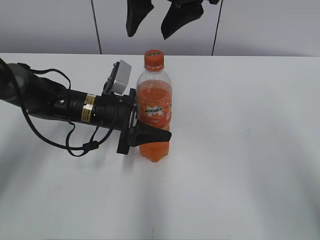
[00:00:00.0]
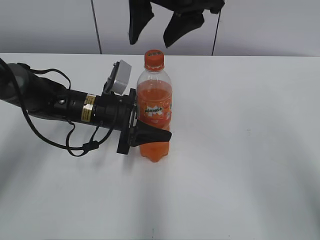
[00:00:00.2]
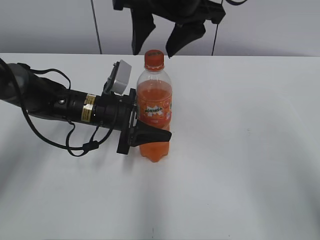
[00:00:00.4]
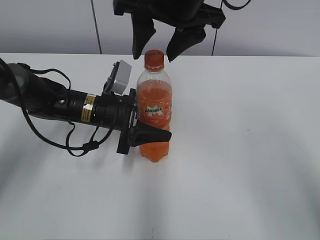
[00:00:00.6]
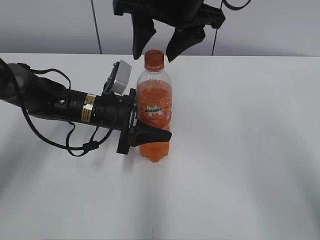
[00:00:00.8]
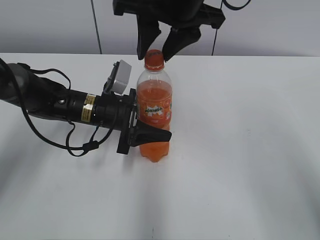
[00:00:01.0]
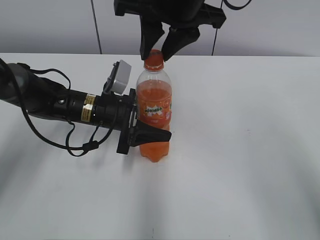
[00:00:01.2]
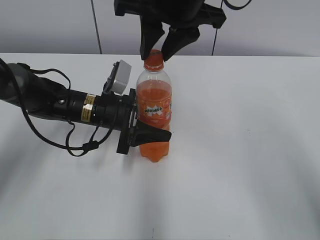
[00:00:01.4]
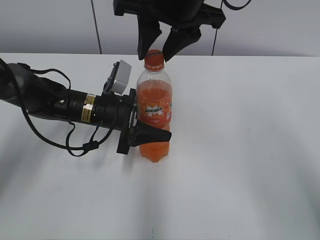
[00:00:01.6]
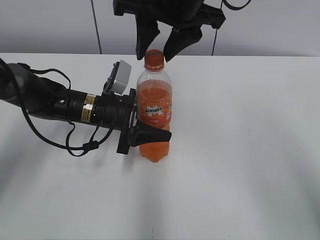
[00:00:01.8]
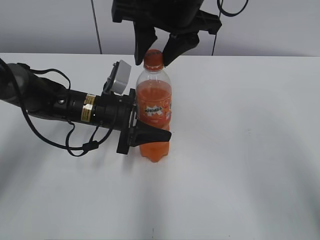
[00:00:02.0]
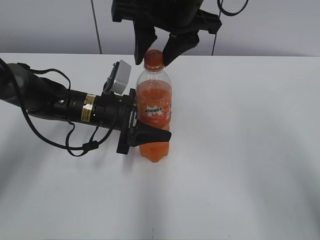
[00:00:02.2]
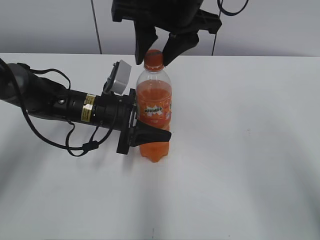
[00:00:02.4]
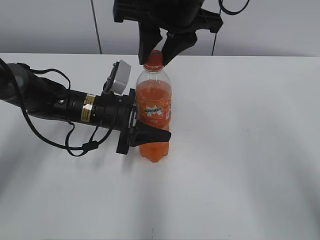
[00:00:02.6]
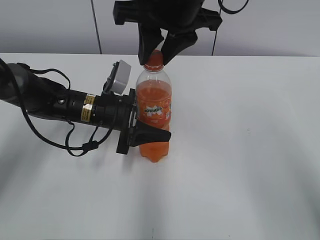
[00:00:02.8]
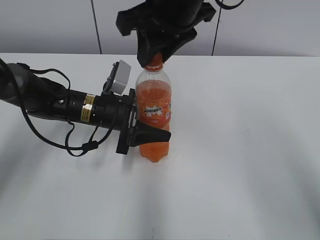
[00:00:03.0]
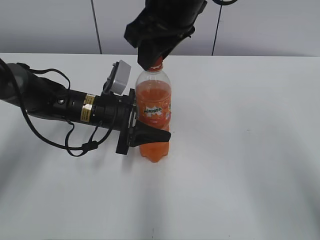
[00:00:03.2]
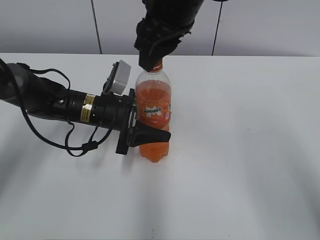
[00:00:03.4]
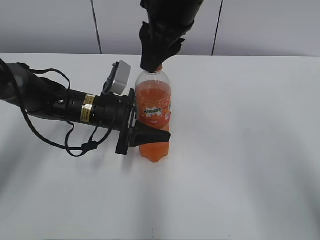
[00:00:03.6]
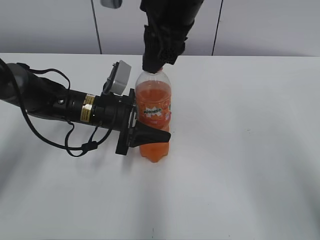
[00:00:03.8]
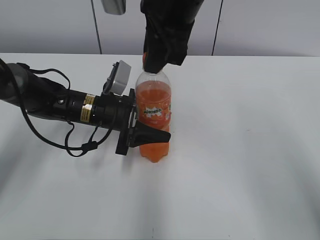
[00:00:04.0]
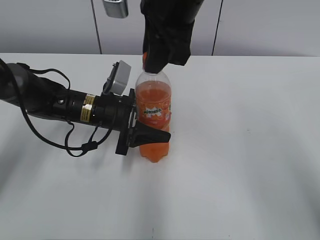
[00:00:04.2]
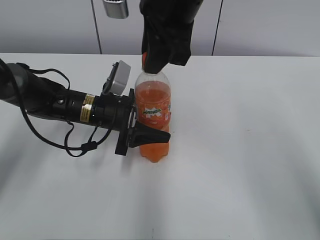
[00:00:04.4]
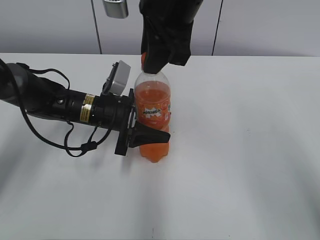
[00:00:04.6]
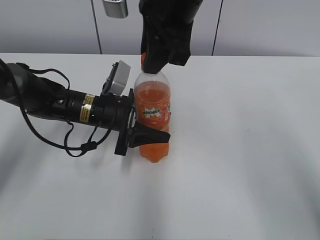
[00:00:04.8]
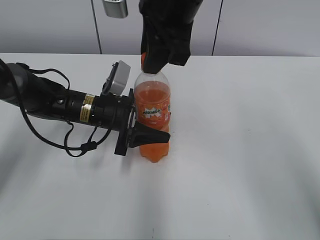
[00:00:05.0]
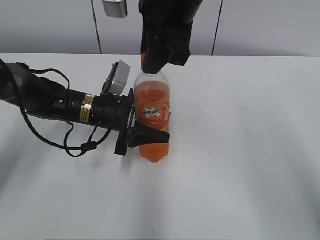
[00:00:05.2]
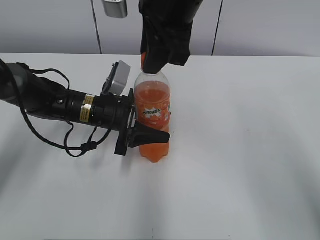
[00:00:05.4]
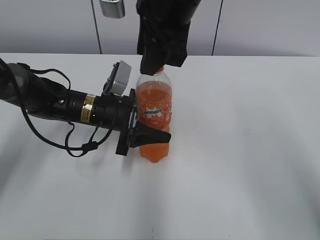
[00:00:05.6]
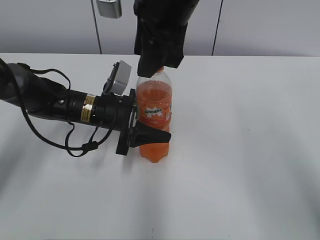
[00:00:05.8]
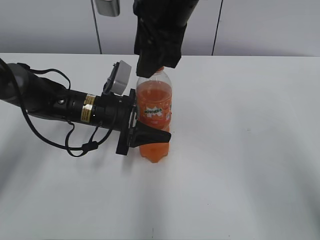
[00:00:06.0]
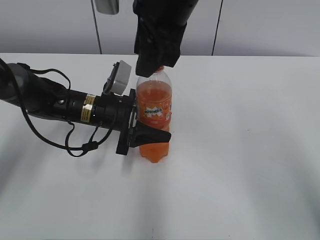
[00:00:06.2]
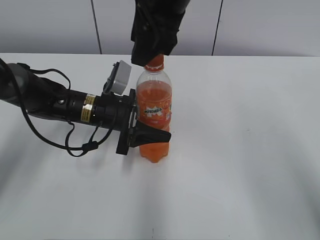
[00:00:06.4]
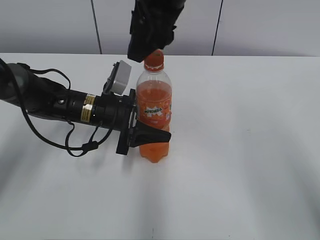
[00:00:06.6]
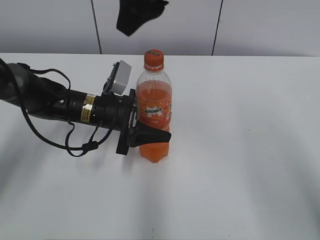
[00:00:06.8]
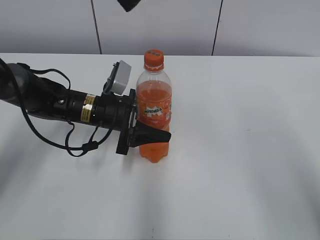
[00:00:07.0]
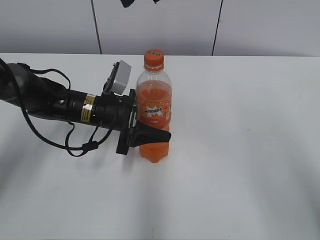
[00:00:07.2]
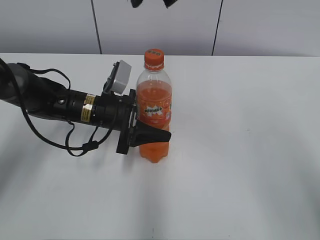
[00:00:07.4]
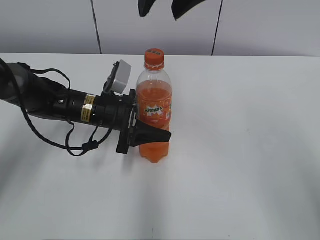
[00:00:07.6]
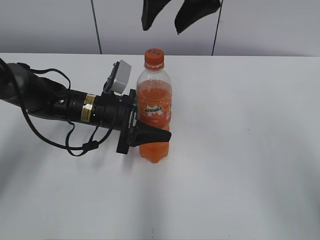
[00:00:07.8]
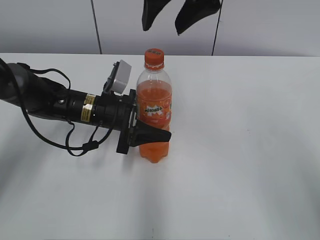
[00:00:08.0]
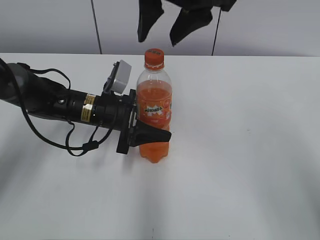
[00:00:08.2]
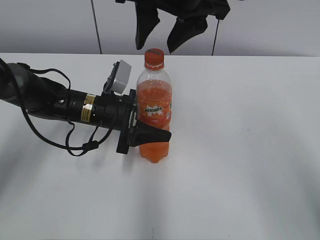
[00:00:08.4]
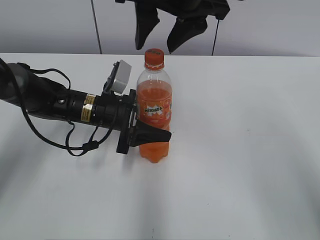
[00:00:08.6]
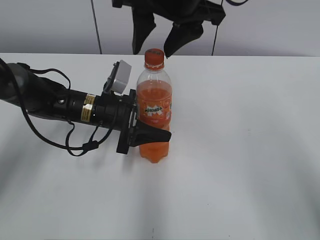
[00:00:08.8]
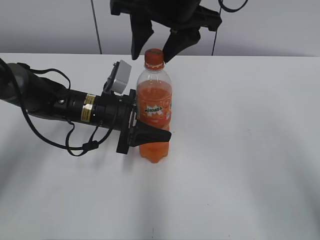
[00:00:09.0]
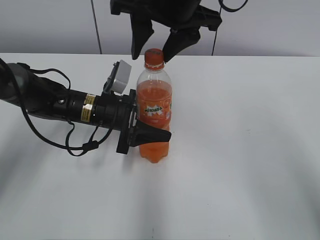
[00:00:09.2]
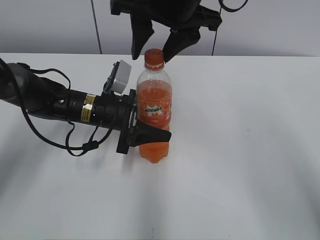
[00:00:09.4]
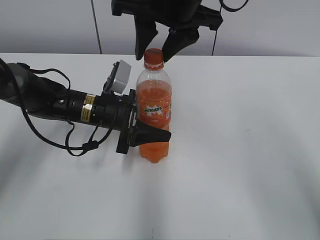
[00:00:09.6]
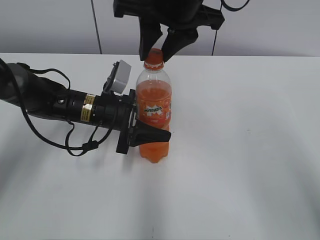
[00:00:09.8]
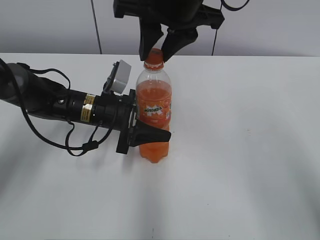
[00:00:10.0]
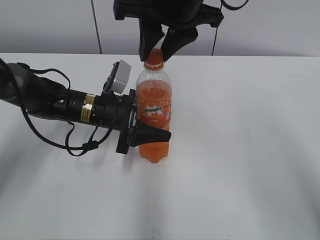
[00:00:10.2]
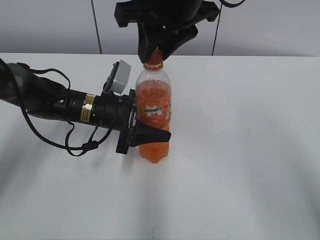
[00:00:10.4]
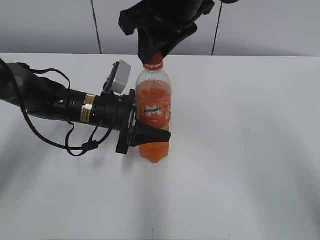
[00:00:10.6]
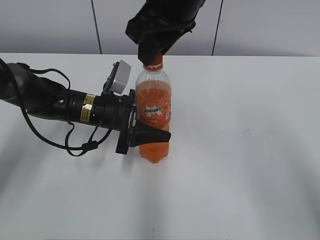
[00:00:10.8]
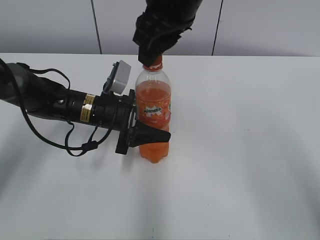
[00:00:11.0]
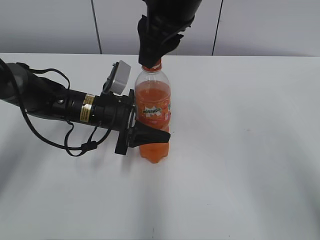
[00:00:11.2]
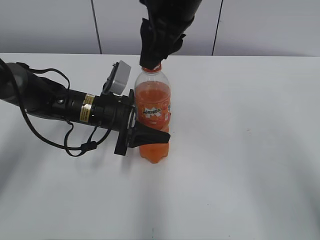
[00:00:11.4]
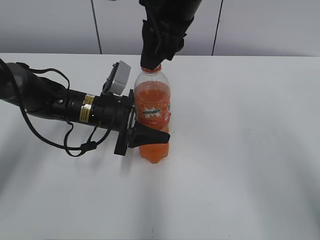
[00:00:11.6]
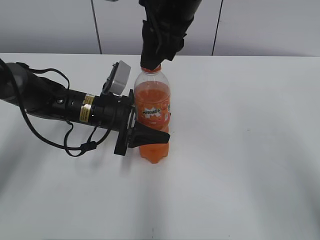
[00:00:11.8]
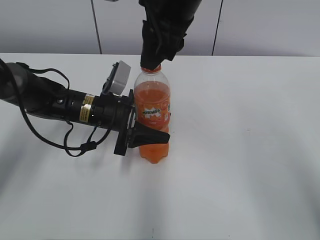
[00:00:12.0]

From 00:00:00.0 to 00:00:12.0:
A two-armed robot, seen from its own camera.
From 00:00:00.0 to 00:00:01.6: The right gripper closes.
From 00:00:01.6 to 00:00:03.0: There are only small adjustments of the grippers.
From 00:00:04.4 to 00:00:06.0: The right gripper opens its fingers.
From 00:00:06.0 to 00:00:07.6: The right gripper moves upward, about 5 cm.
From 00:00:07.6 to 00:00:09.0: The right gripper is displaced downward by approximately 5 cm.
From 00:00:09.0 to 00:00:10.4: The right gripper closes.

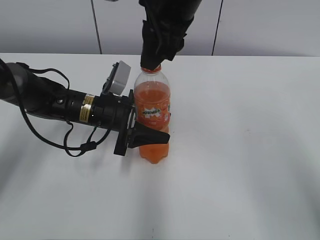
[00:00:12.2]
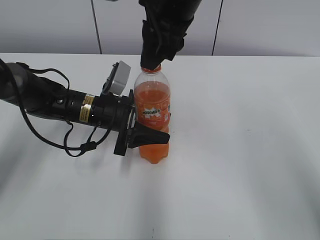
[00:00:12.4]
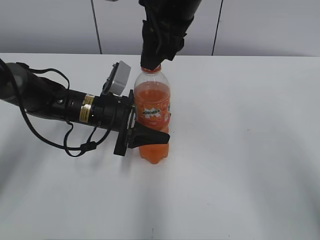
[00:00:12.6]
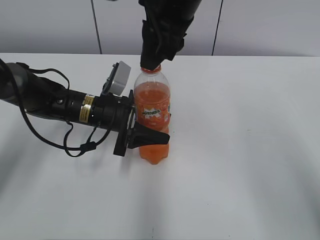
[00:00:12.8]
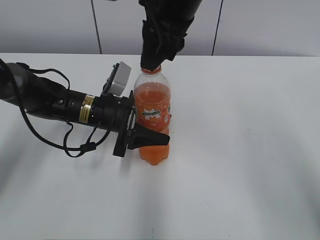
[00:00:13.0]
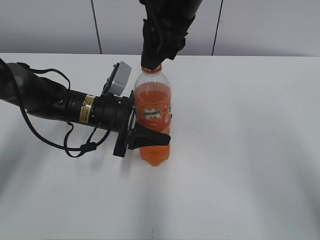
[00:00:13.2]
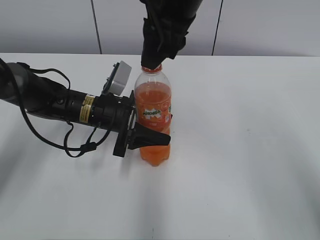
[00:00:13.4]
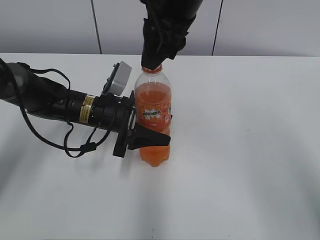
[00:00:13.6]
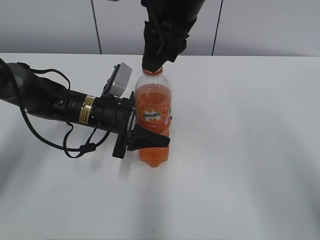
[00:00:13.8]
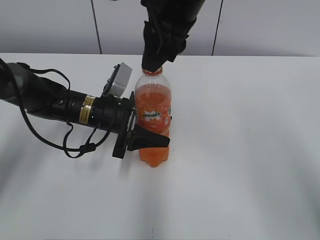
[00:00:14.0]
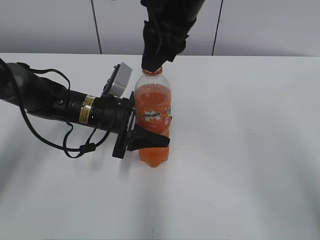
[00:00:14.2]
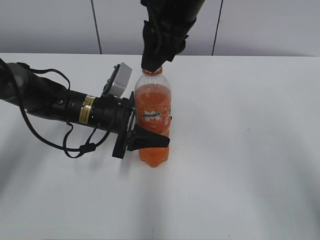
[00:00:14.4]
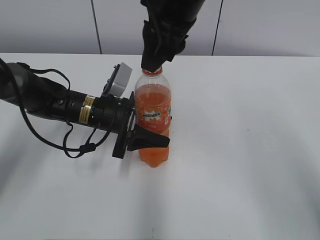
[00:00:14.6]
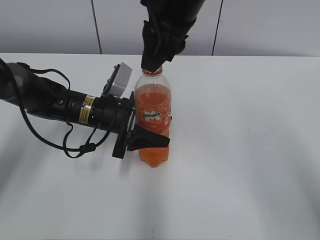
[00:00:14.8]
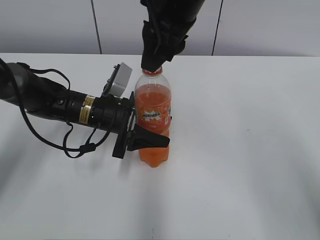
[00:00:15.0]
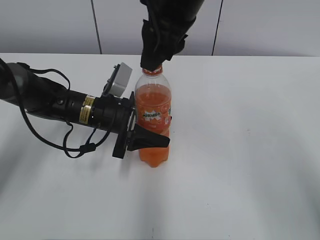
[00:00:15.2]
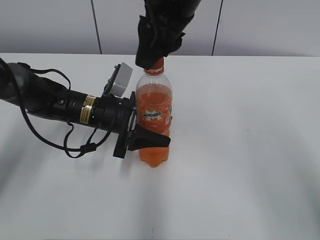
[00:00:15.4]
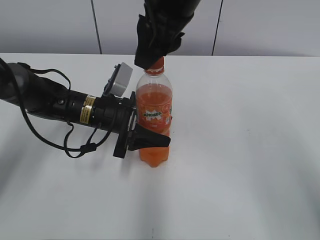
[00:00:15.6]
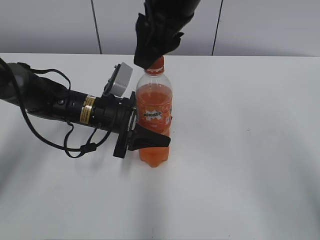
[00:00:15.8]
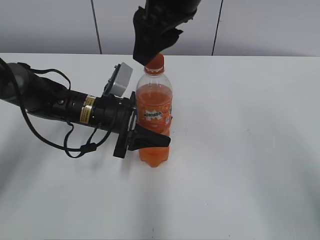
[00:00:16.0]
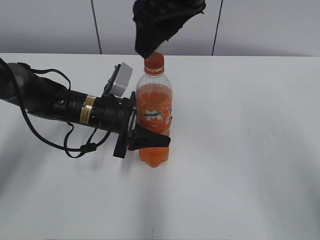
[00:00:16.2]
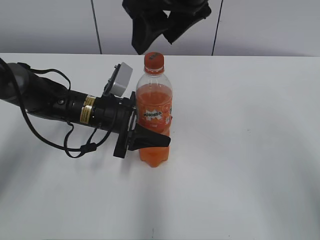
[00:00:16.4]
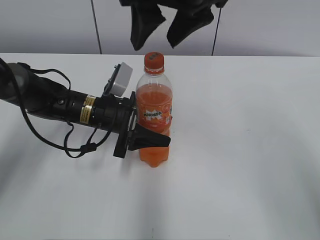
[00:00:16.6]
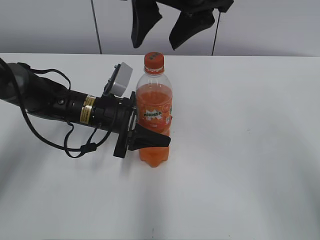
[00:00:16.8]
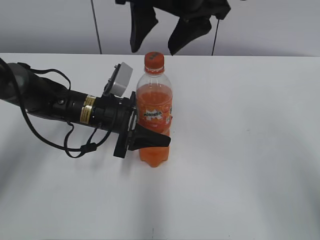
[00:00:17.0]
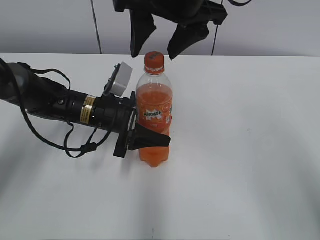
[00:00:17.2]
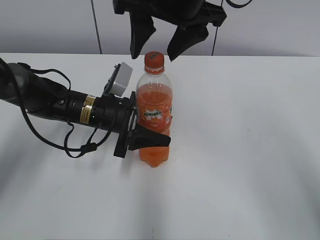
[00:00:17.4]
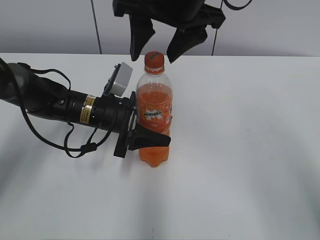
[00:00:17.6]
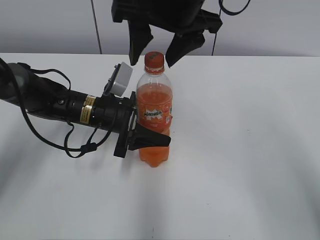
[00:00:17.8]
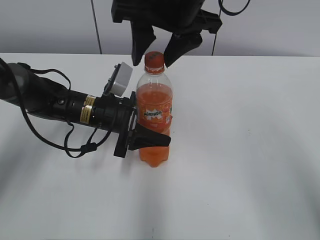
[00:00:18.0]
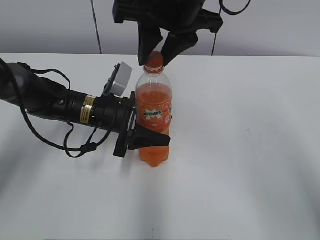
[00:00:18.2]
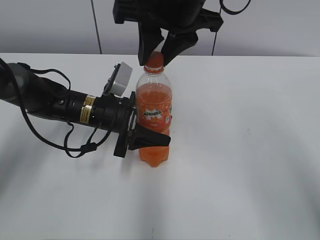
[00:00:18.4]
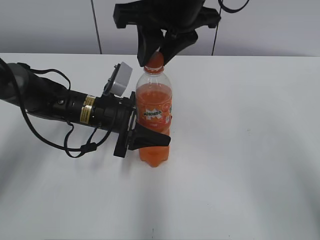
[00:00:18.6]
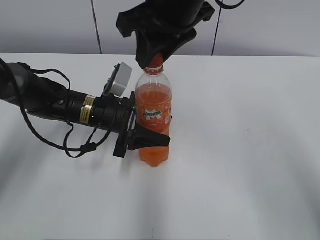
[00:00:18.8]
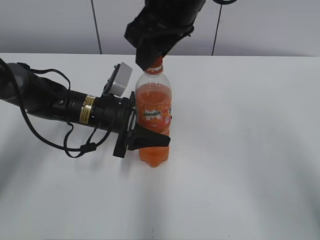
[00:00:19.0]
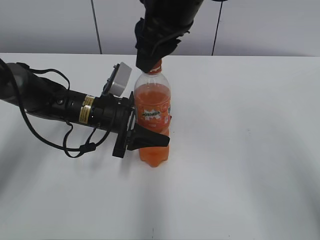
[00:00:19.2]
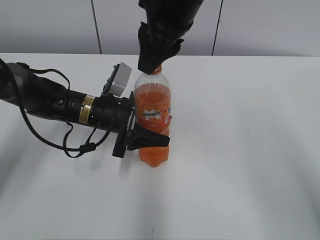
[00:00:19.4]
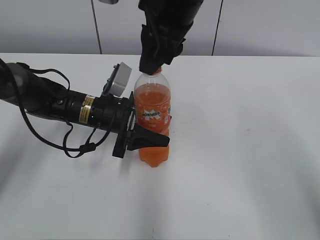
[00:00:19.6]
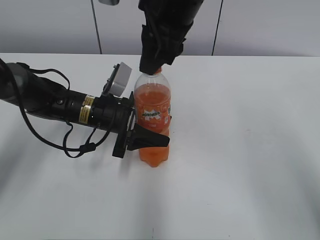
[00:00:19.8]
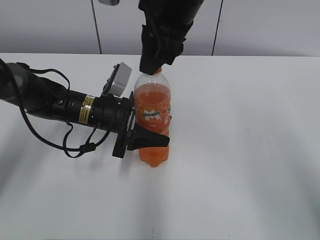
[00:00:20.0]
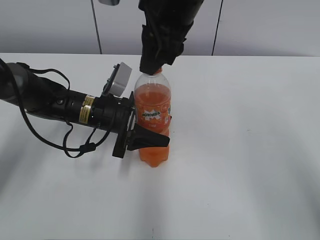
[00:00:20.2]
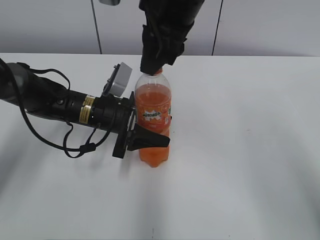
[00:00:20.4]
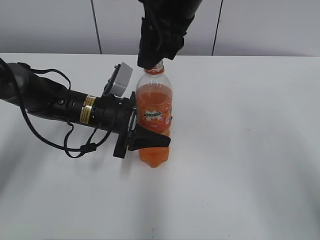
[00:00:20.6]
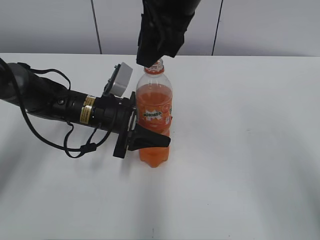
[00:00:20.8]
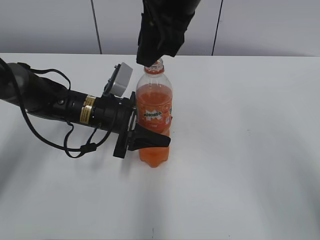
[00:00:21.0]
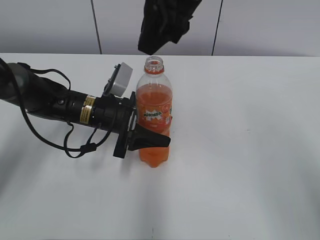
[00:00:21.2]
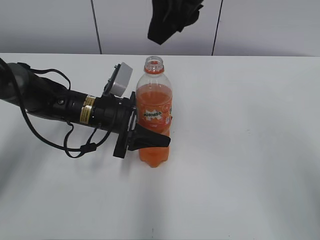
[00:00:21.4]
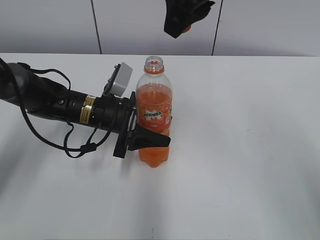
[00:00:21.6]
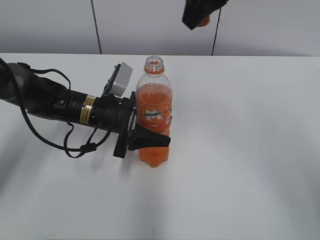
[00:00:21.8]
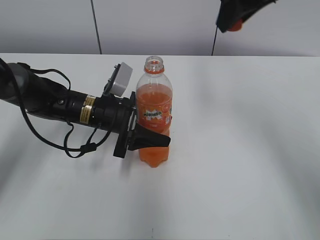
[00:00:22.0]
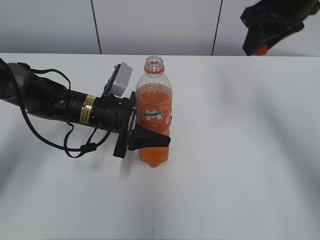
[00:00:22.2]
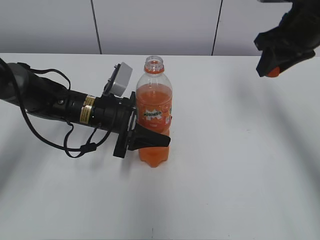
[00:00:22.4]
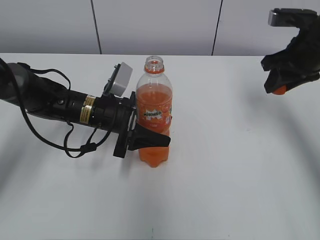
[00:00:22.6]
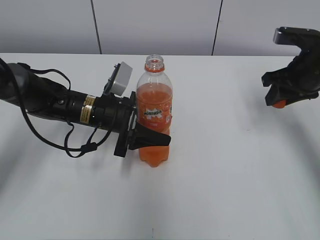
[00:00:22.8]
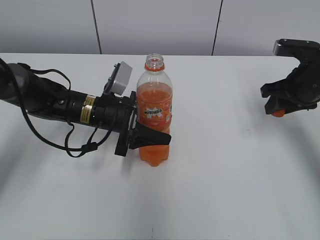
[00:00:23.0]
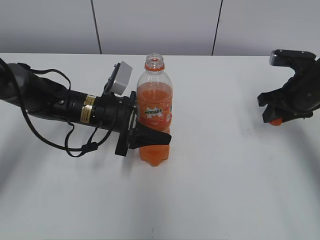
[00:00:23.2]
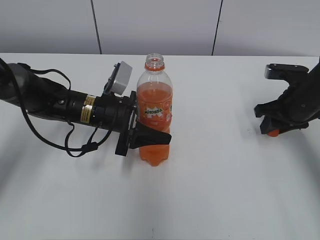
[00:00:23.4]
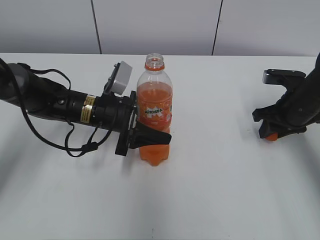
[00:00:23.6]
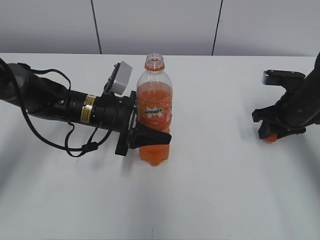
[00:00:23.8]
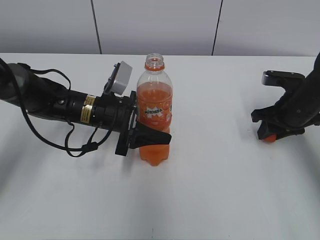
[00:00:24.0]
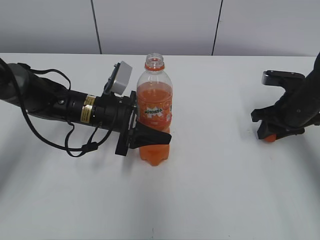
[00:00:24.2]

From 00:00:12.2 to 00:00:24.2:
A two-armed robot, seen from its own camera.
From 00:00:12.2 to 00:00:15.2: Neither gripper changes place.
From 00:00:15.2 to 00:00:16.6: The right gripper opens up.
From 00:00:16.6 to 00:00:18.2: The right gripper closes its fingers.
From 00:00:19.8 to 00:00:21.2: The grippers stay close to where they were, moving slightly.
From 00:00:21.2 to 00:00:22.6: The right gripper is displaced to the right and downward by some 25 cm.
From 00:00:22.6 to 00:00:24.2: The right gripper heads downward, covering about 10 cm.
